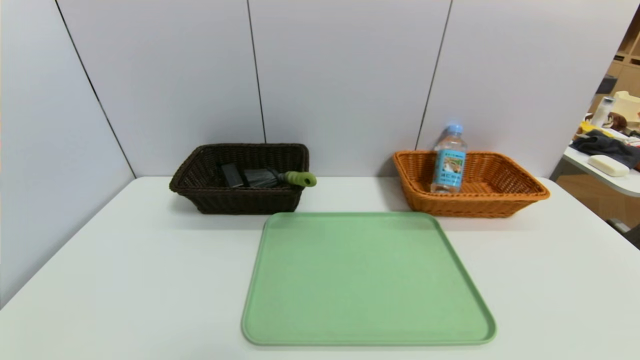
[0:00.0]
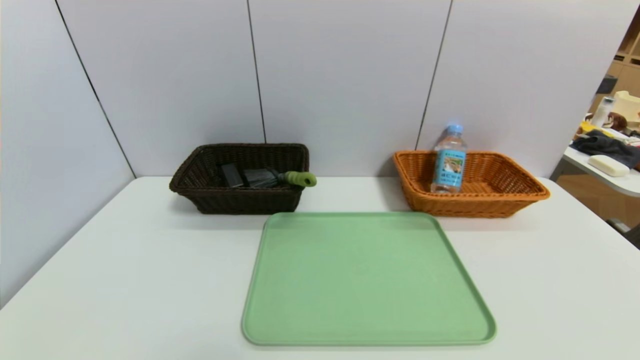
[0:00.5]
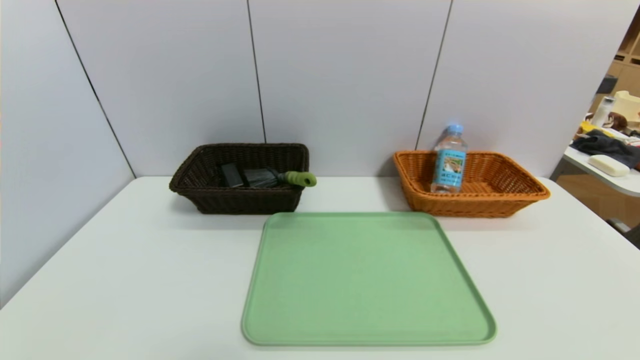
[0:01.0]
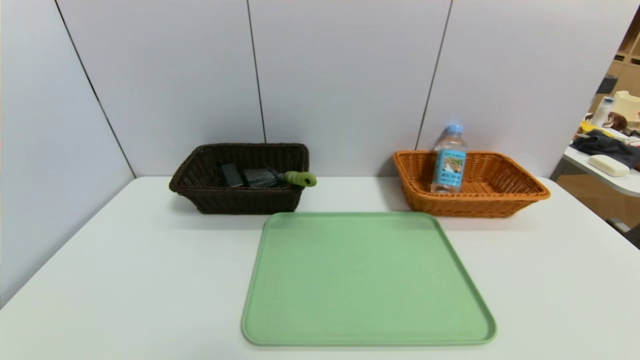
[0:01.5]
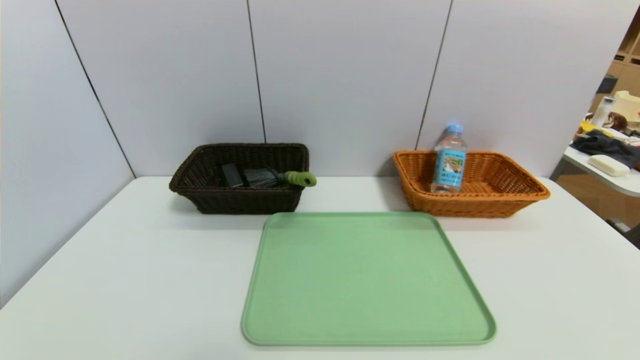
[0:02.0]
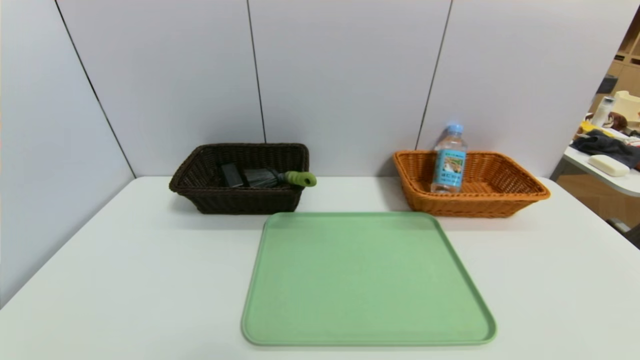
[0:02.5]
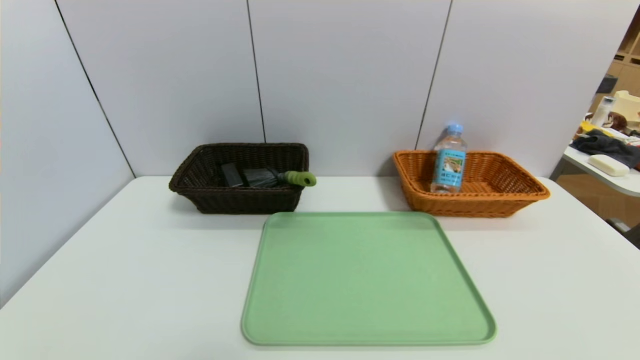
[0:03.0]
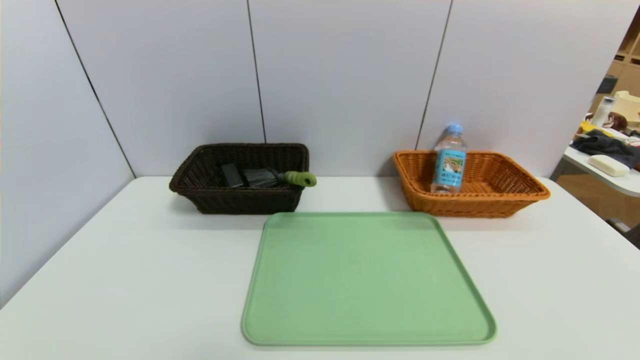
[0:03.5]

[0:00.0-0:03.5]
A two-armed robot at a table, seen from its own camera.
Task of the whole recording: place the food in the right basket with the right gripper, and place the non food items in the left basket with the left gripper.
0:02.0 to 0:03.5: Neither gripper changes place.
